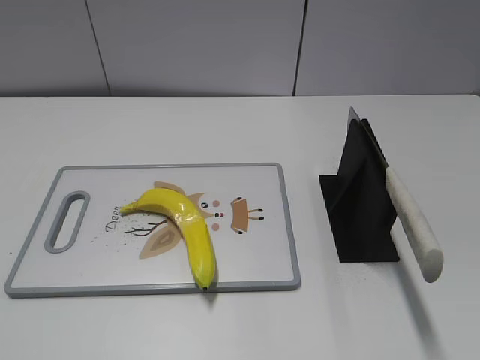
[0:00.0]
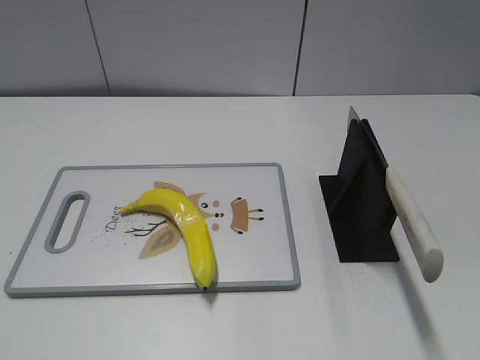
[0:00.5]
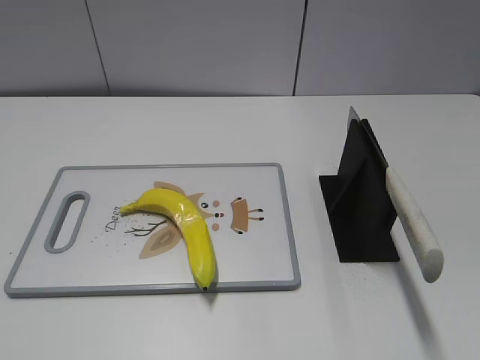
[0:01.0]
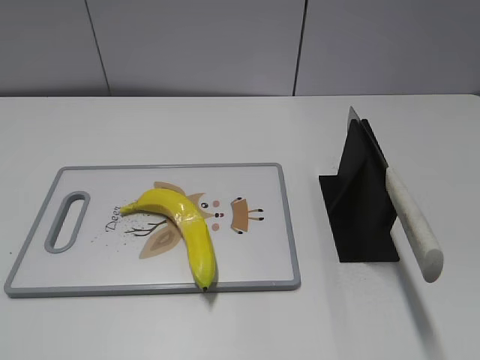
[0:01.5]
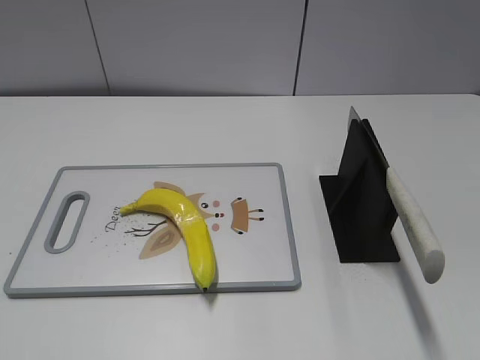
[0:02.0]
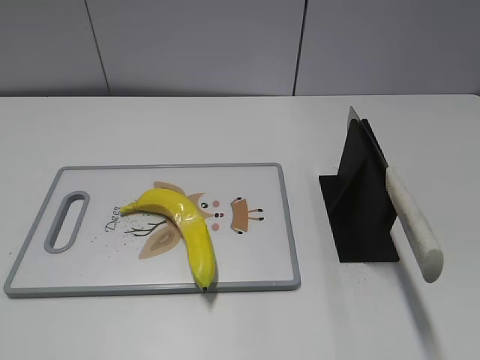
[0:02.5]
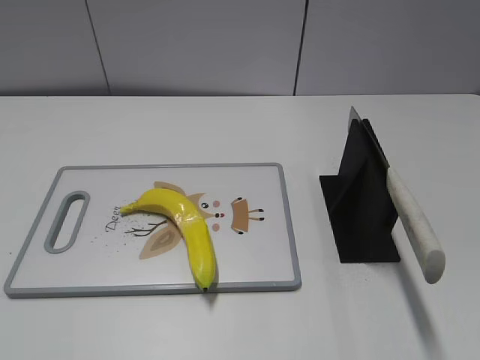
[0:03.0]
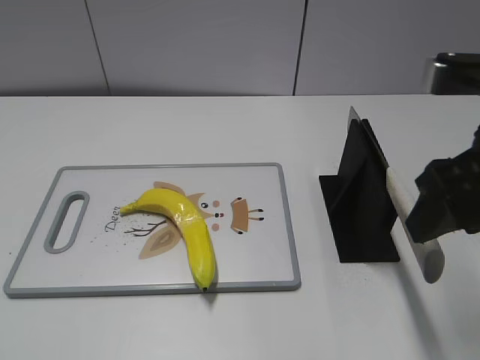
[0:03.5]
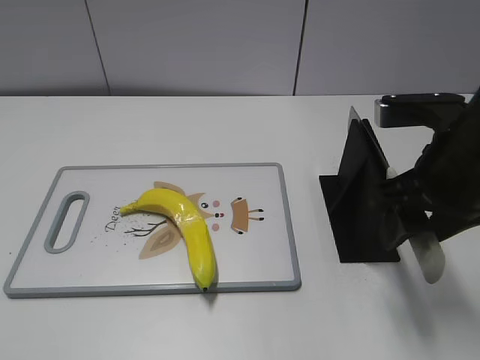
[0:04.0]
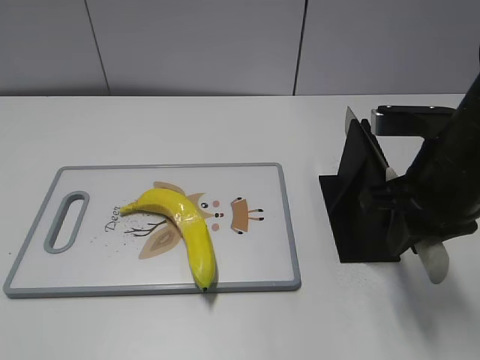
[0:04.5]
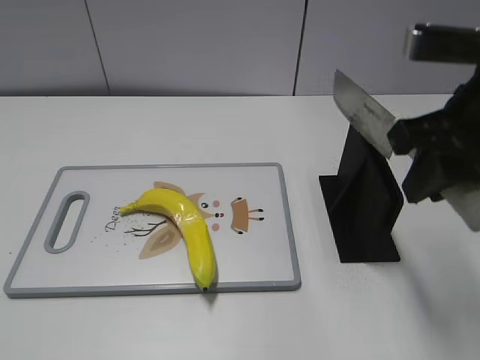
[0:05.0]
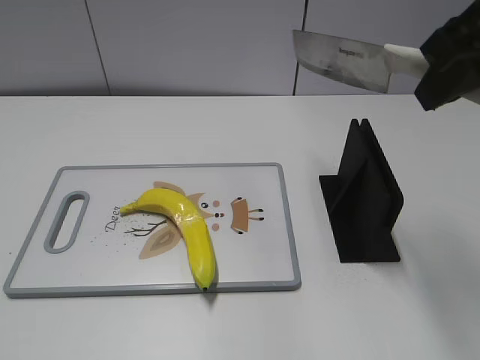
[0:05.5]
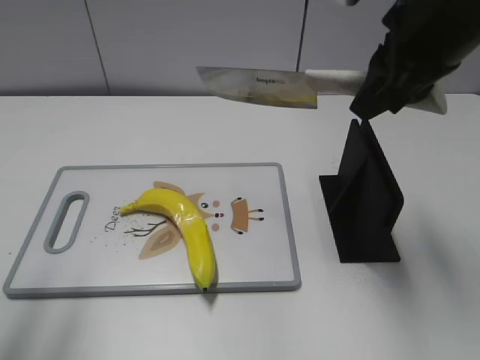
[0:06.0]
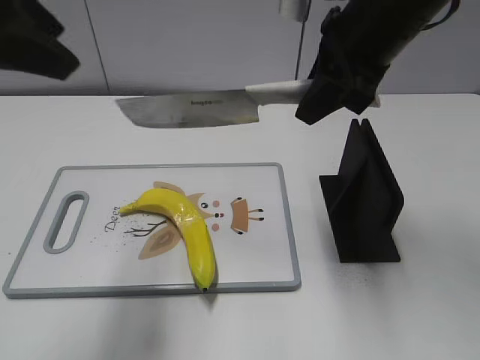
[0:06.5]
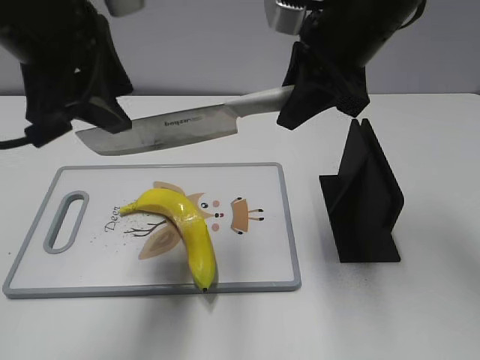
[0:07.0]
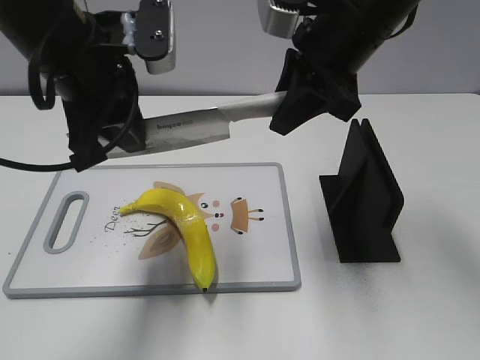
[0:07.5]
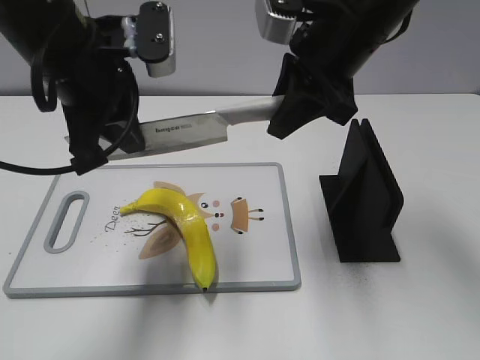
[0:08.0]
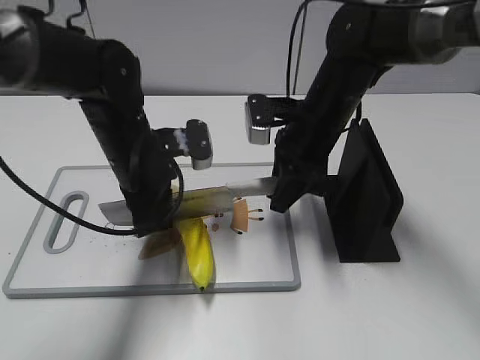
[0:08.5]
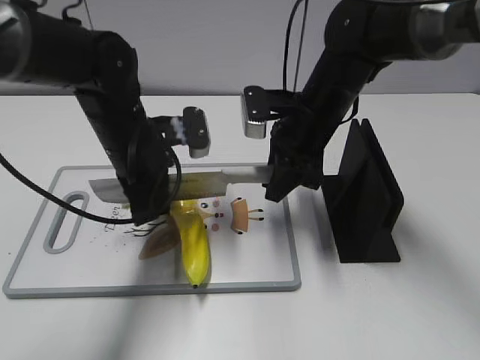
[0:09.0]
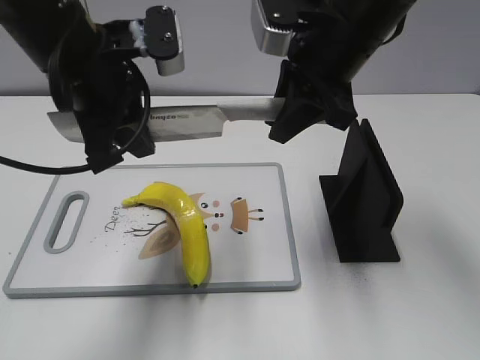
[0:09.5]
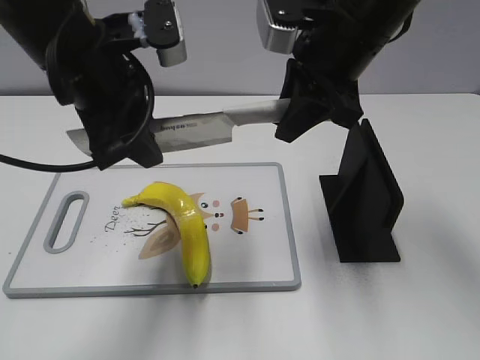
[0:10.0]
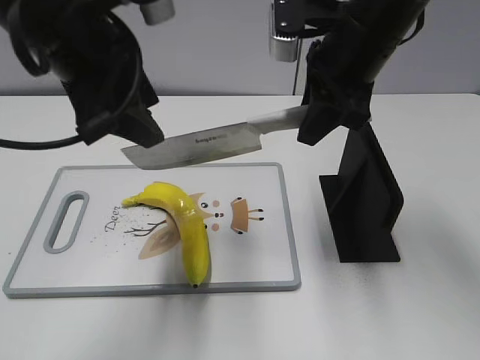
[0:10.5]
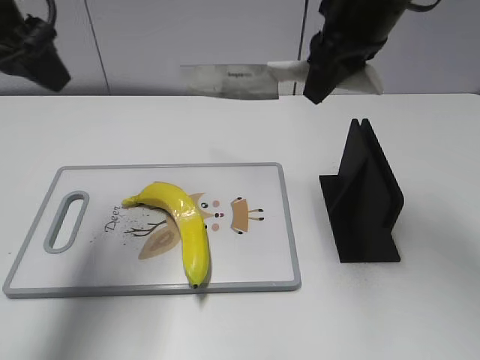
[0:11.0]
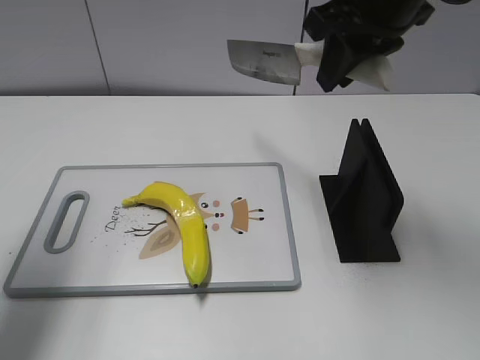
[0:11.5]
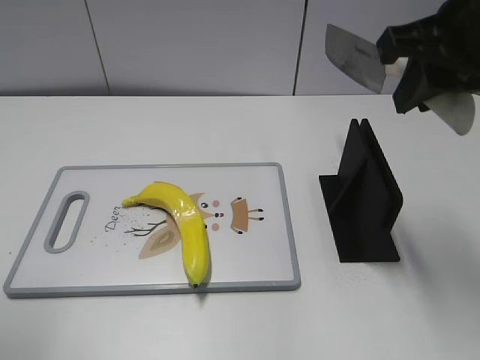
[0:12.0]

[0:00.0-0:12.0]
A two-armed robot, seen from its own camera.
Task of the whole recording: cut plastic banana.
Step, 0:00.0 to 0:05.0: Grab the knife handle with your right hand.
Step, 0:05.5 to 0:09.5: Lift the knife with your right hand.
Step, 0:10.0 to 0:10.5: Cut the banana with your right hand.
0:02.0 to 0:04.0: The right gripper goes approximately 25 cm forward and to the left.
0:04.0 to 0:06.0: The right gripper shifts approximately 10 cm upward and forward, and closes up. The left gripper goes about 20 cm forward and upward.
0:06.0 to 0:08.0: The right gripper goes some 10 cm forward and to the left, while the left gripper travels to the right, forward and downward by some 25 cm, and closes.
0:08.0 to 0:10.0: The left gripper reaches roughly 15 cm downward, then returns, and opens, while the right gripper moves approximately 15 cm downward and comes back.
0:10.0 to 0:12.0: The left gripper moves to the left and backward, about 25 cm, while the right gripper goes approximately 10 cm backward, to the right and upward.

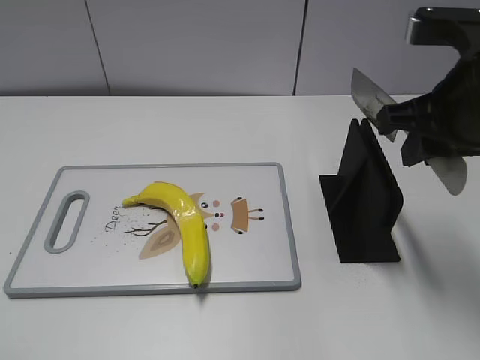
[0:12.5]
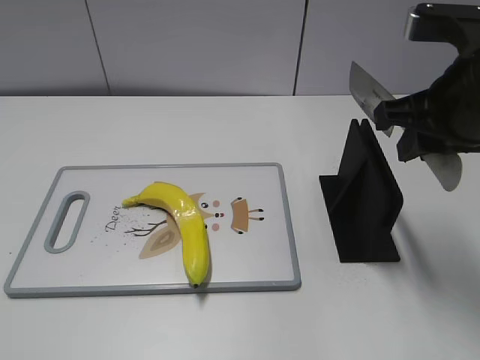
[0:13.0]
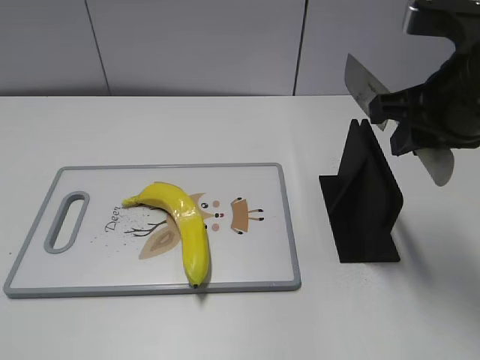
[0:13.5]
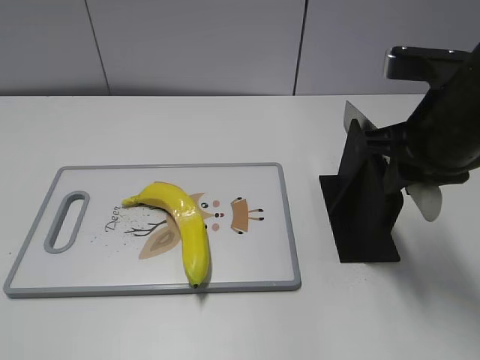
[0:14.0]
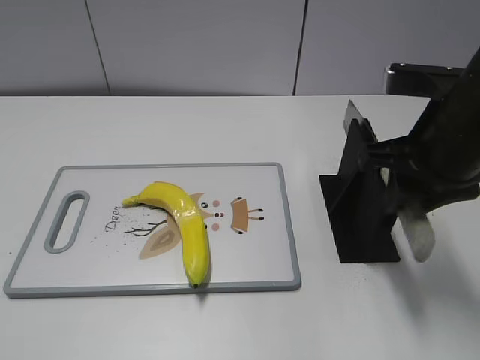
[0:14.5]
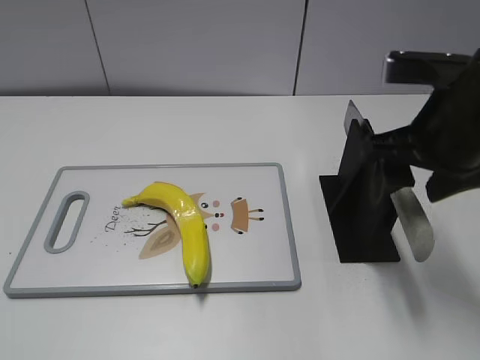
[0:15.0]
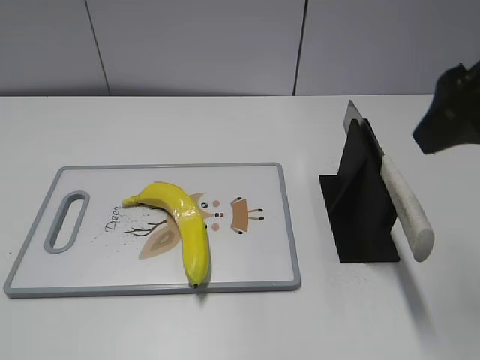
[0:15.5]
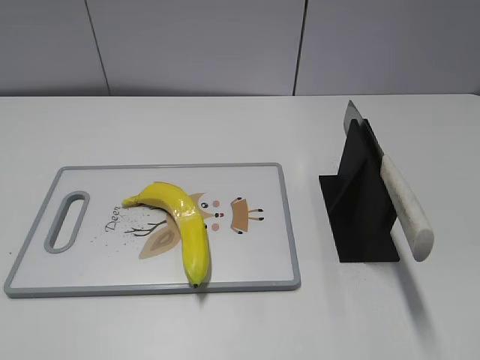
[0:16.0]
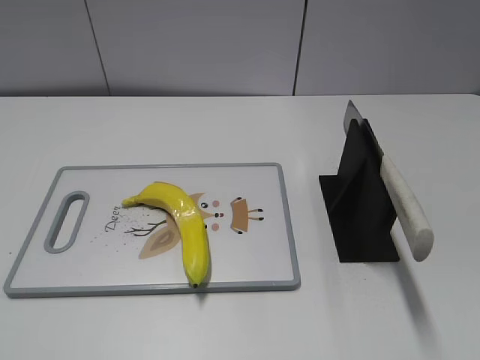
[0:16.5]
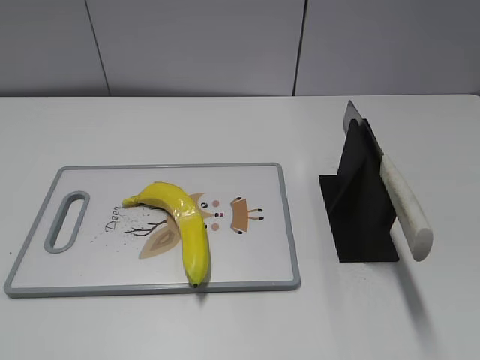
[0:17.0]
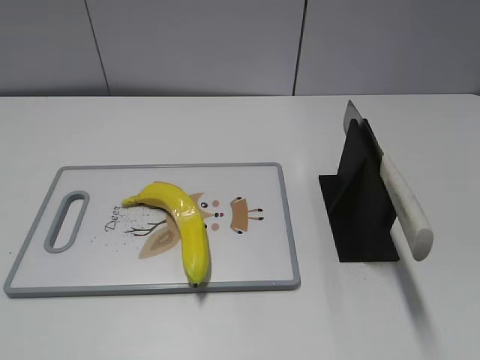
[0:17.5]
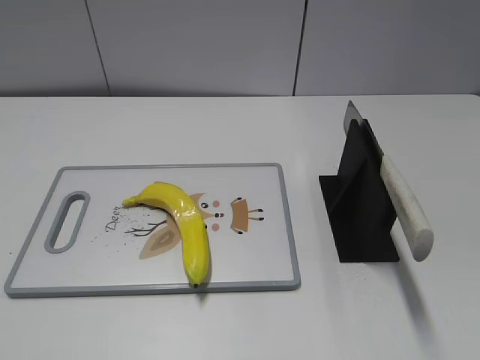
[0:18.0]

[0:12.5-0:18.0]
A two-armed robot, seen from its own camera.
Task of the whole recording: cut plastic banana.
Step, 0:12.5 to 0:18.0: Place the knife on the storage rack with your right hand.
0:14.5 to 0:16.0: The right gripper heads backward, upward and to the right, covering about 15 cm, and opens its fingers.

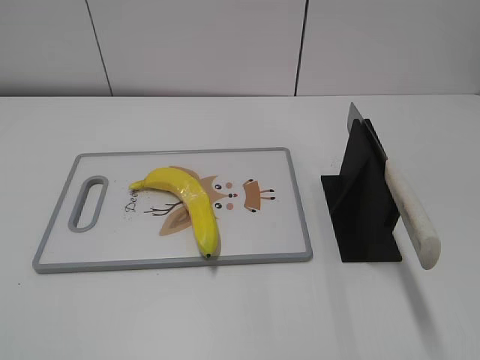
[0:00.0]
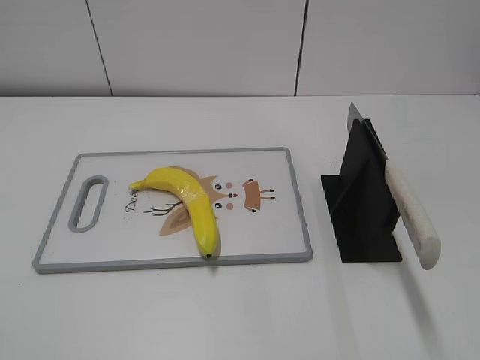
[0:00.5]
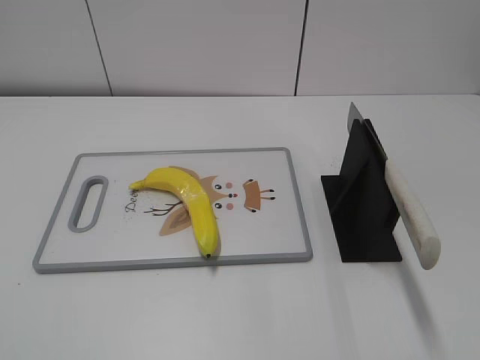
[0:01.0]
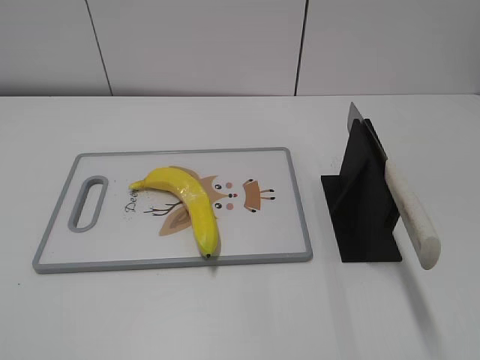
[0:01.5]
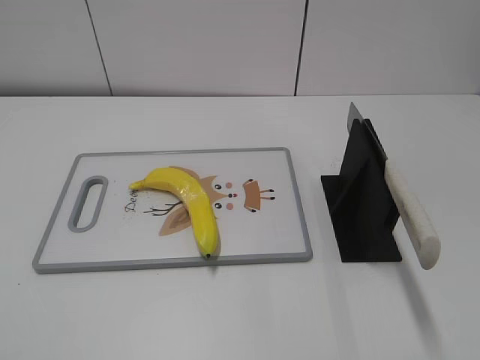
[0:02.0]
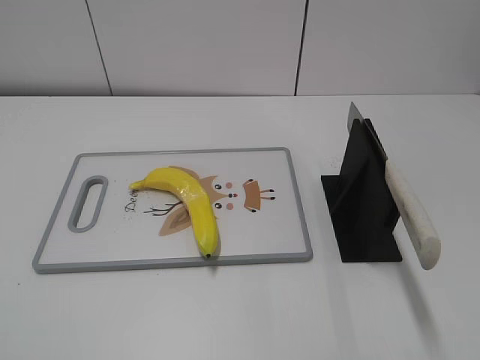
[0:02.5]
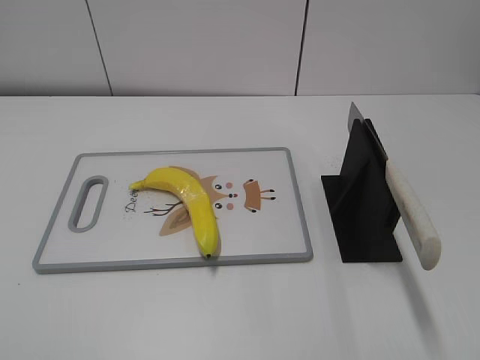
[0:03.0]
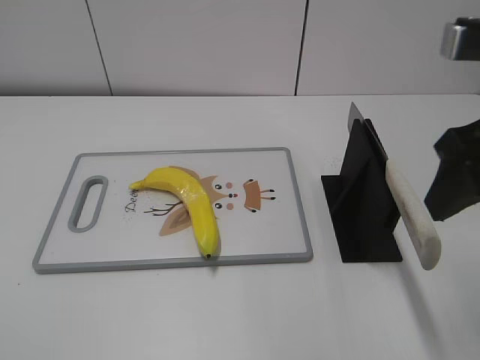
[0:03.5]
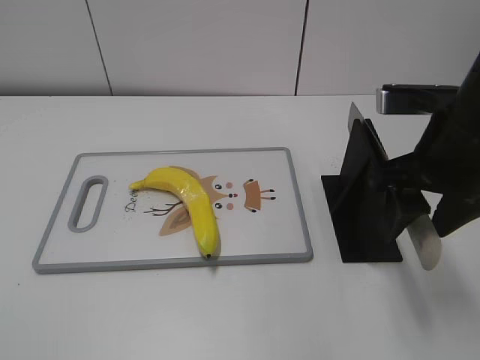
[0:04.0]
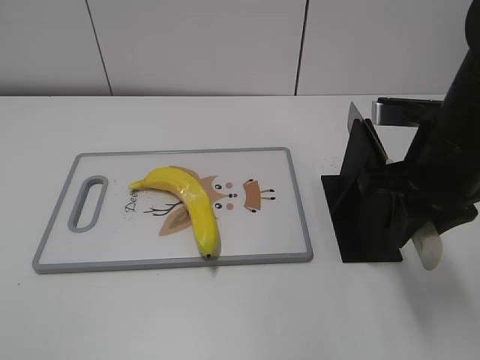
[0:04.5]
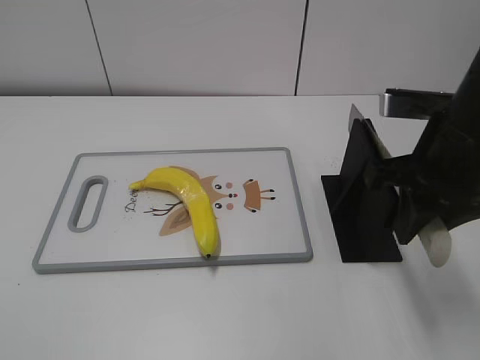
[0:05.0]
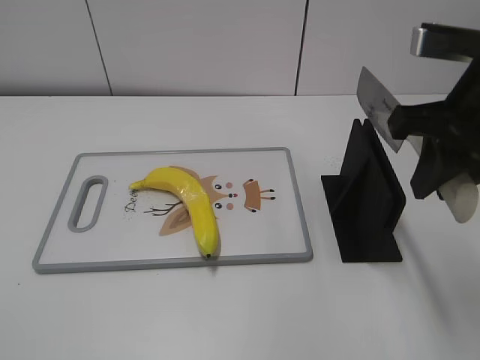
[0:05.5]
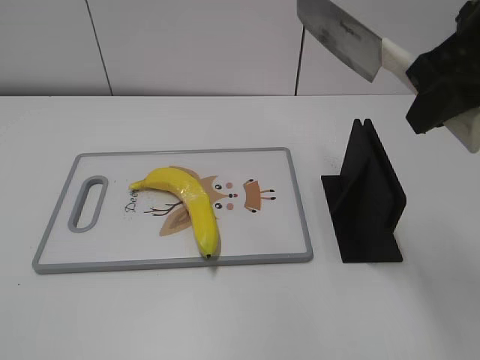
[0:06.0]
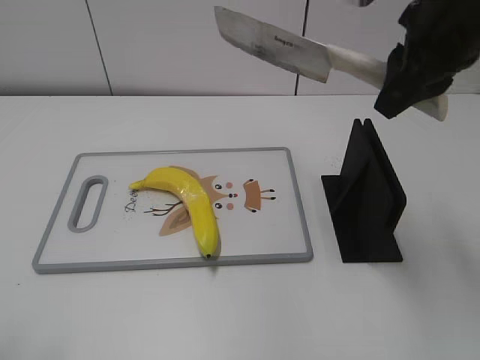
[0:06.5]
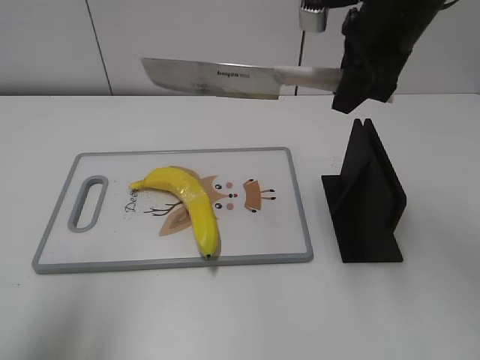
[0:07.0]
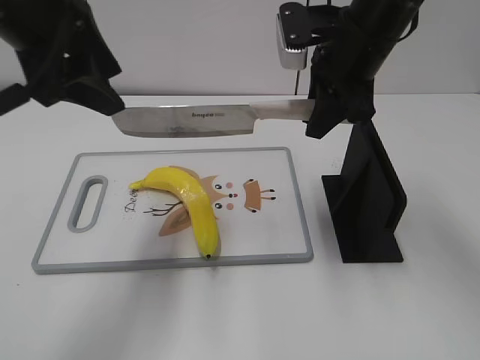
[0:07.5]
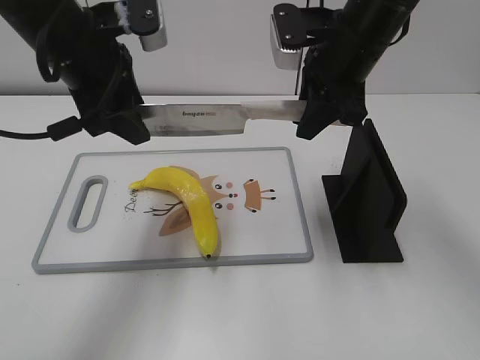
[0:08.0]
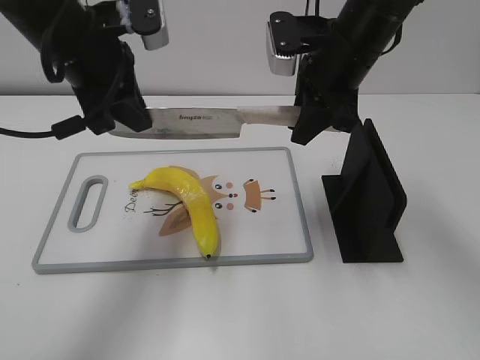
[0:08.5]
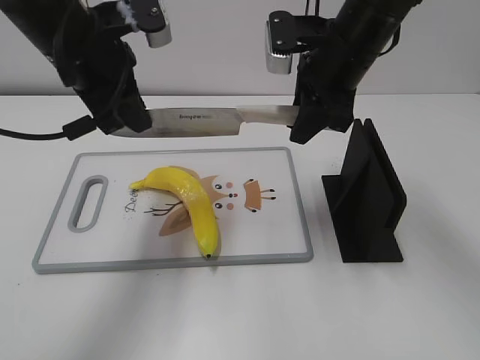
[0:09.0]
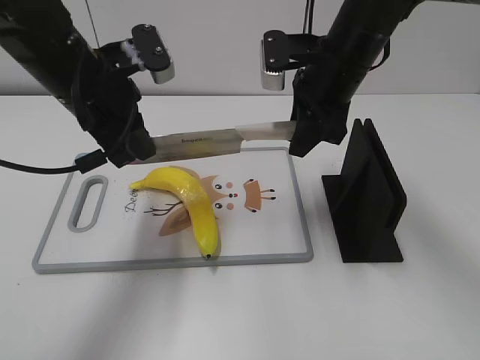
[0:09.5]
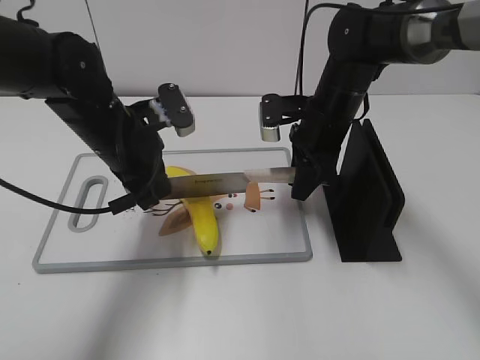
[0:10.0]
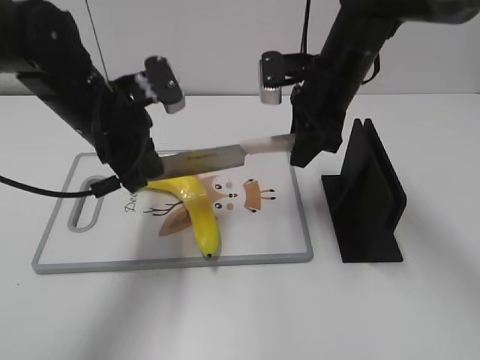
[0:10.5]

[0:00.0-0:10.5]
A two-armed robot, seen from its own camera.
Task of the whole recording: cut plastic banana.
Step, 0:00.0 to 0:05.5: Grab the knife handle with your right hand.
0:02.0 to 0:04.0: The right gripper goes roughly 25 cm forward.
0:04.0 to 0:06.5: The left gripper travels forward by some 10 cm, while the right gripper moves upward, roughly 10 cm, and closes up.
0:06.5 to 0:08.5: The right gripper is displaced downward, forward and to the left by approximately 15 cm. Meanwhile the left gripper goes some 30 cm forward and to the right, and closes.
0:08.5 to 0:10.5: The left gripper shifts roughly 5 cm downward, while the right gripper moves approximately 10 cm downward and comes back.
